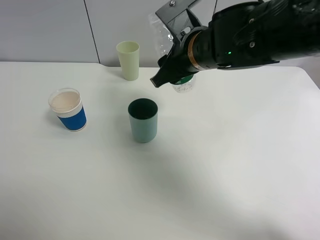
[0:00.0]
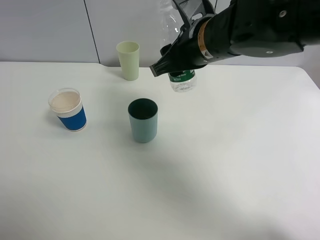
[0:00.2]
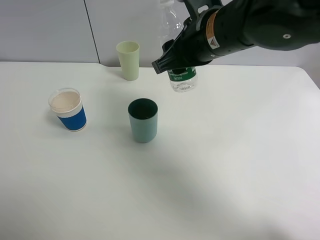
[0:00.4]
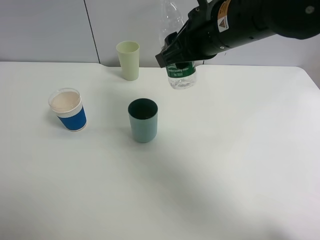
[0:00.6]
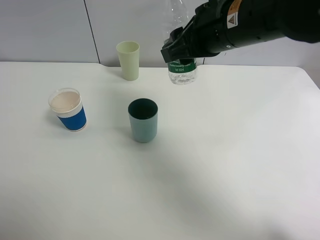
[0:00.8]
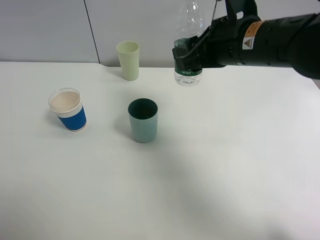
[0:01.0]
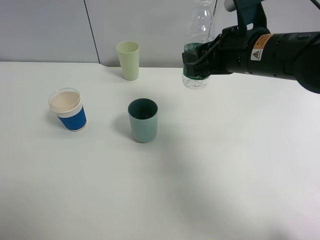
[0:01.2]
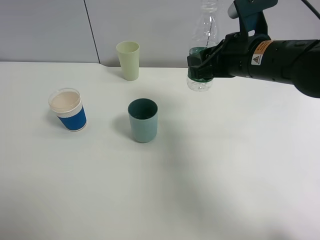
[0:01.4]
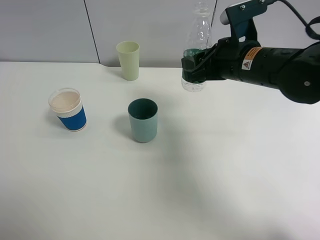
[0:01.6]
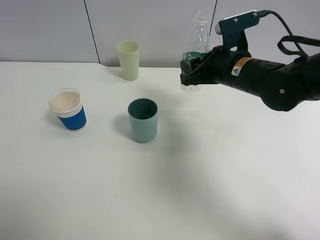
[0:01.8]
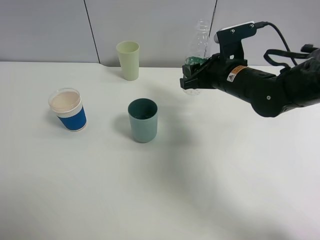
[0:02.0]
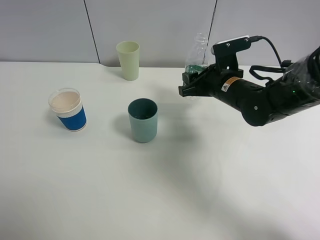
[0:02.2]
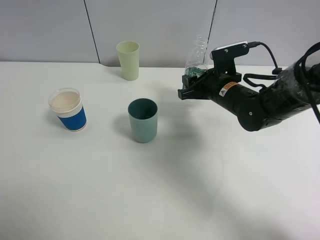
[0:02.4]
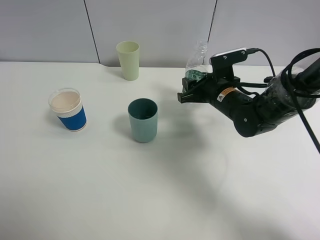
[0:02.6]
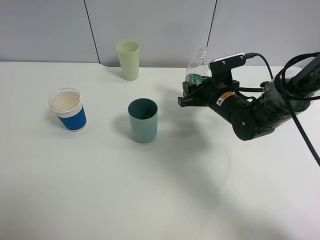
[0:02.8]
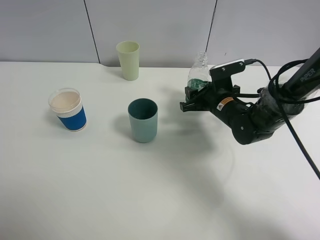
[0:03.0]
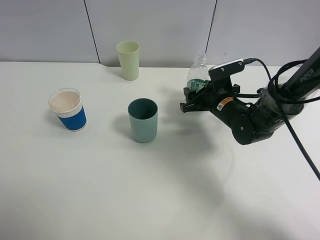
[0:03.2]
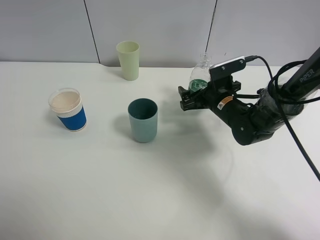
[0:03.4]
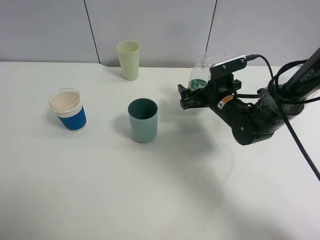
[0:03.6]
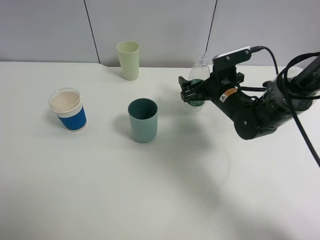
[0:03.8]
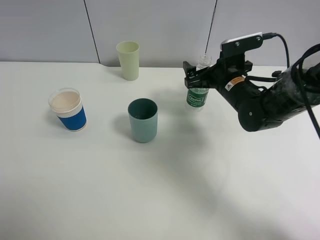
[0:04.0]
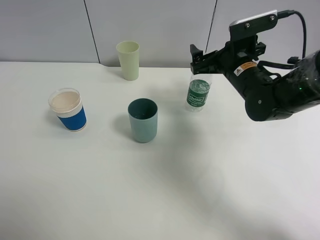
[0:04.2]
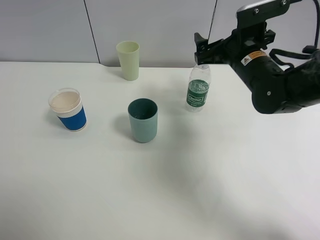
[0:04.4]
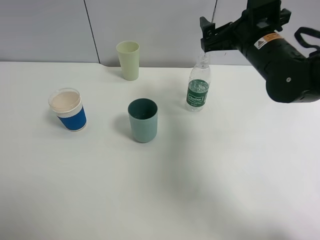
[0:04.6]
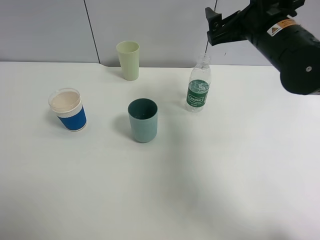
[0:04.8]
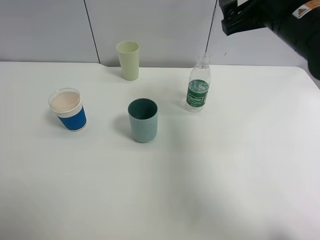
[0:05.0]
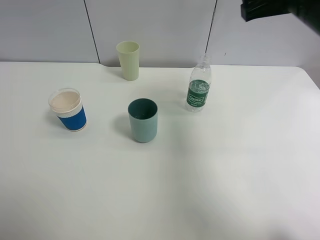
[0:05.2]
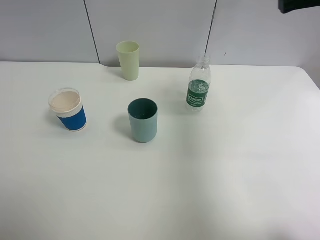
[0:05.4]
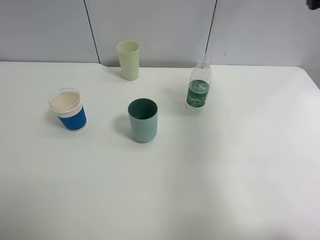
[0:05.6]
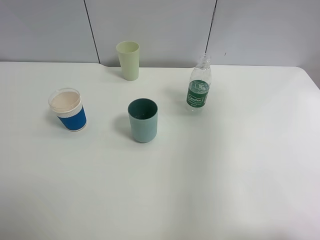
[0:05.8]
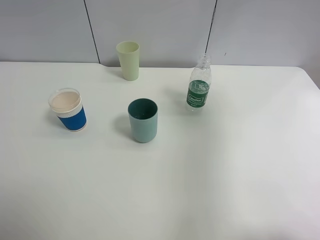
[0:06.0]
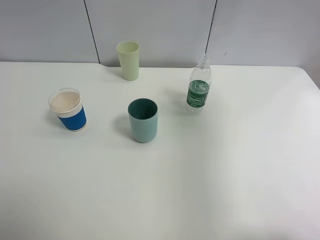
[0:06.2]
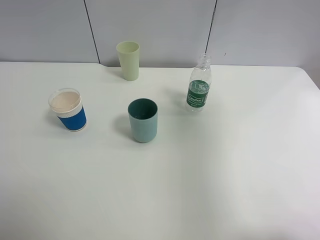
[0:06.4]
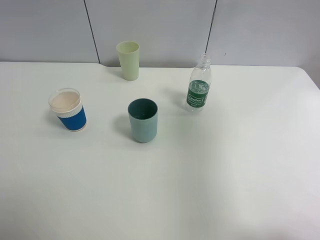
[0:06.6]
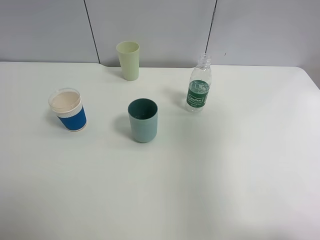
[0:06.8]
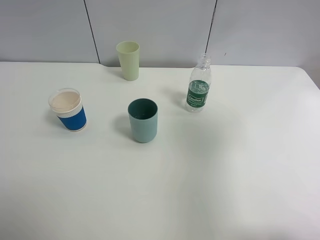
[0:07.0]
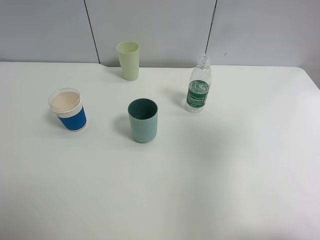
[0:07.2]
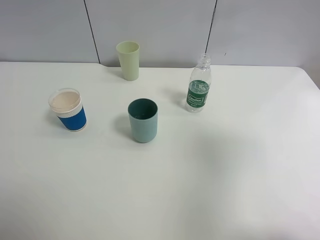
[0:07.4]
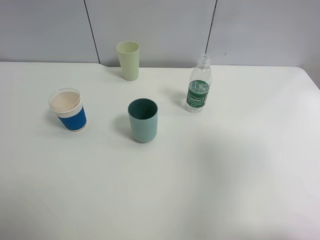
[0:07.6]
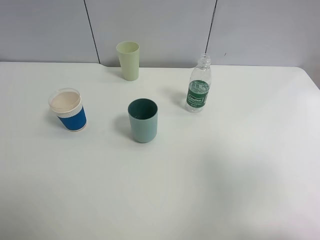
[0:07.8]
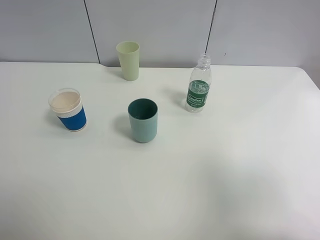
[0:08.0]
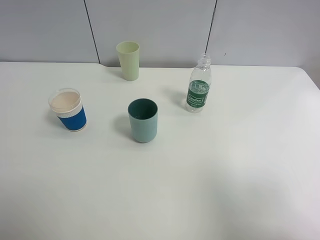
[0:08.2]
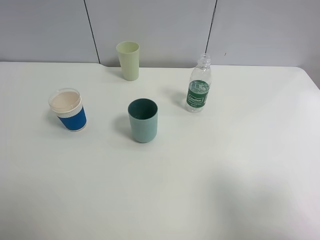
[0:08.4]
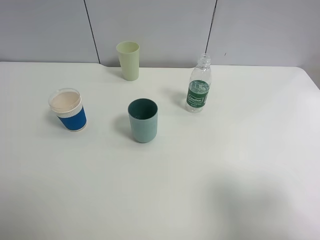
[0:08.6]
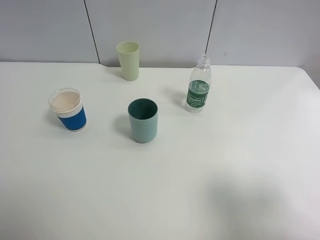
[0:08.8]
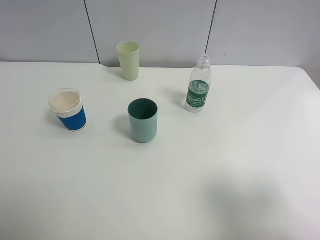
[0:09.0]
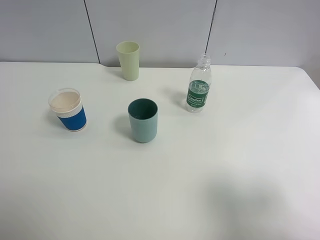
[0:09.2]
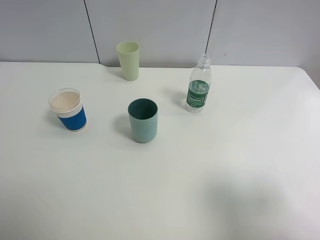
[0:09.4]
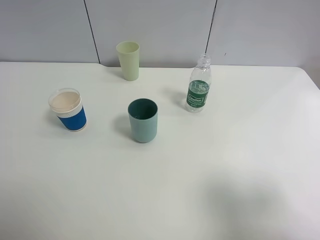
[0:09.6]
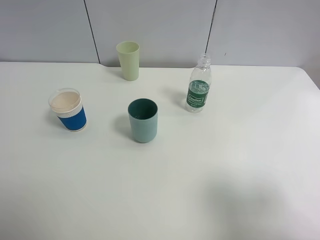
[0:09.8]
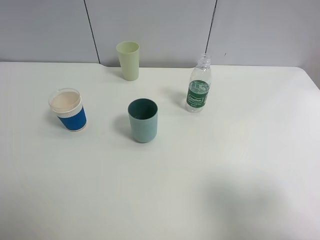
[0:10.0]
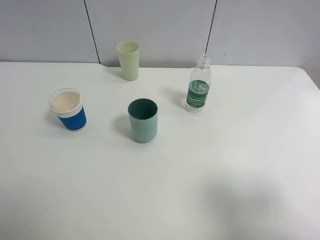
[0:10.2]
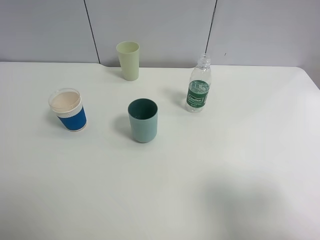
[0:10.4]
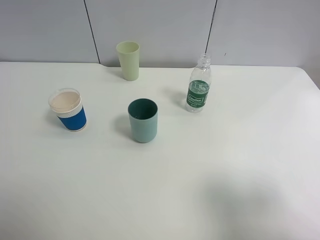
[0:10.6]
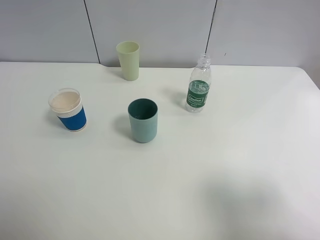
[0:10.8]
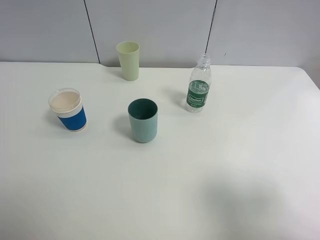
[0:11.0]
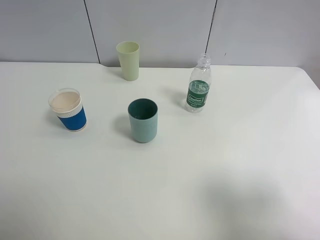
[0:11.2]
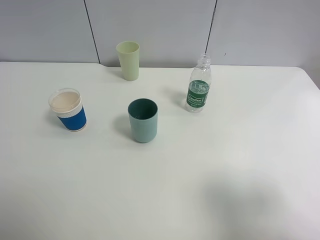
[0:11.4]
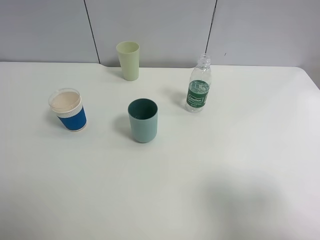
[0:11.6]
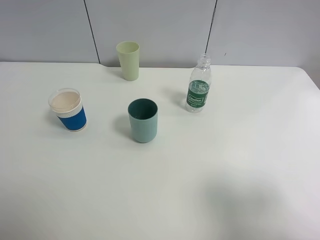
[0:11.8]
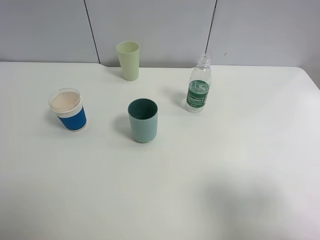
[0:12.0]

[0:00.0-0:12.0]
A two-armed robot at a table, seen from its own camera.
Task of the whole recording: use a clamp to hold the bottle of the drink, pour the beverage into a random cup, then clamp the cup containing the drink and pour the drink into another random cup.
Step, 0:00.4 to 0:04.4: Place the water bottle on the table with right gripper.
0:00.0 to 0:01.6: The right gripper shifts approximately 10 cm to the right.
0:01.6 to 0:03.0: The right gripper is displaced downward by about 15 cm.
0:03.0 to 0:04.4: The right gripper is displaced upward by some 10 cm, and opens.
0:04.4 to 0:06.0: The right gripper goes about 25 cm upward, to the right and backward.
0:06.0 to 0:07.6: The right gripper goes approximately 15 cm backward.
0:07.6 to 0:09.0: The right gripper goes about 10 cm downward and backward.
0:09.0 to 0:12.0: Both grippers stay put.

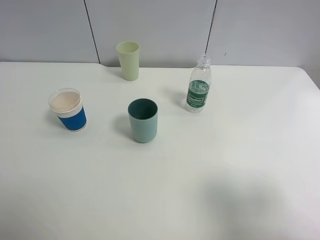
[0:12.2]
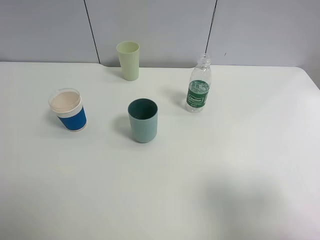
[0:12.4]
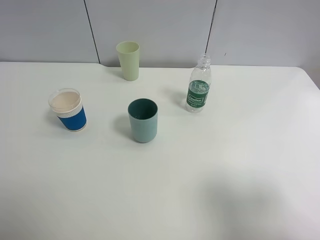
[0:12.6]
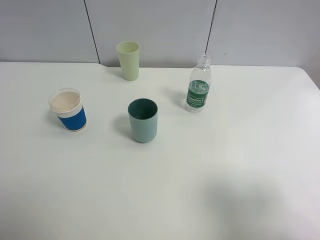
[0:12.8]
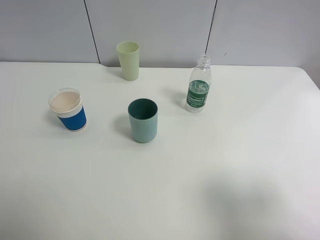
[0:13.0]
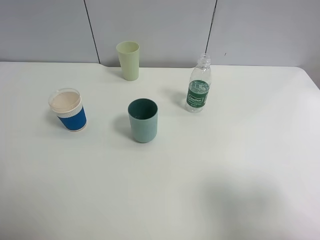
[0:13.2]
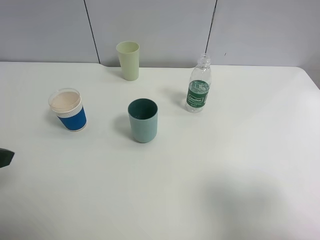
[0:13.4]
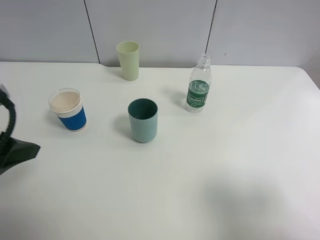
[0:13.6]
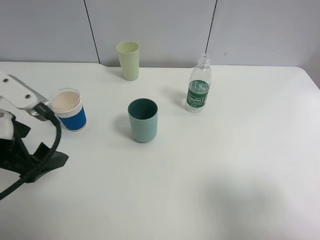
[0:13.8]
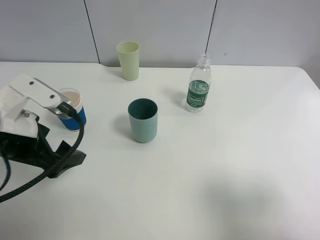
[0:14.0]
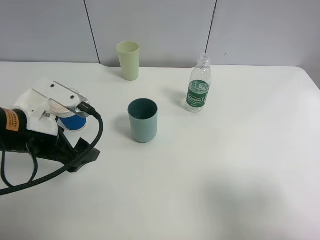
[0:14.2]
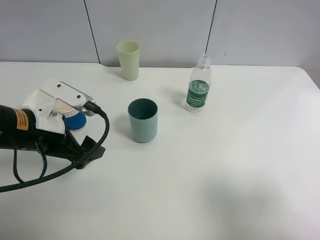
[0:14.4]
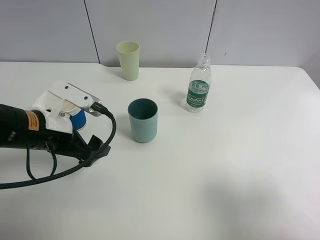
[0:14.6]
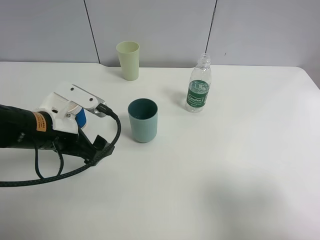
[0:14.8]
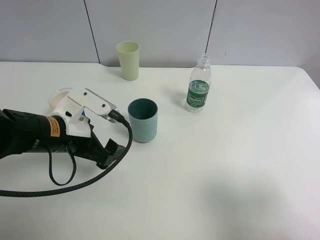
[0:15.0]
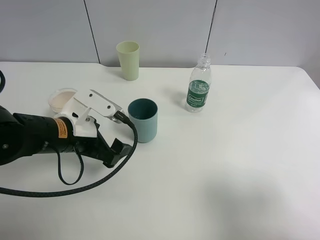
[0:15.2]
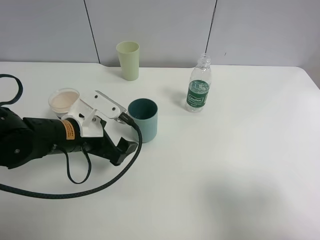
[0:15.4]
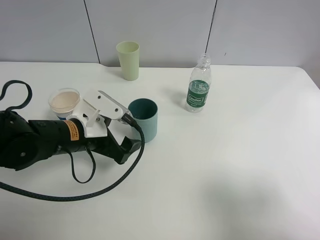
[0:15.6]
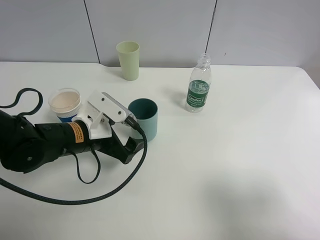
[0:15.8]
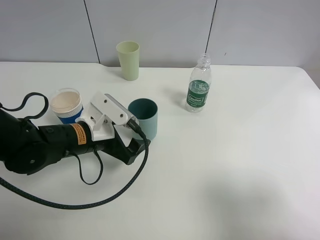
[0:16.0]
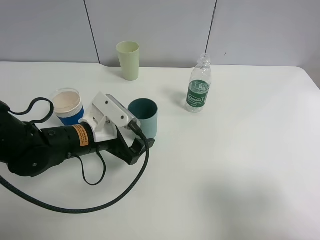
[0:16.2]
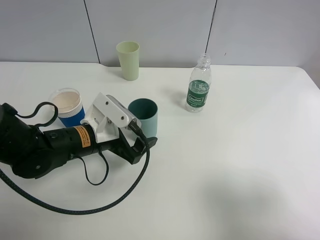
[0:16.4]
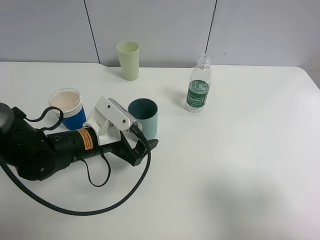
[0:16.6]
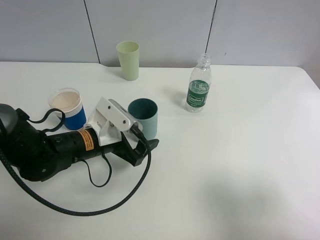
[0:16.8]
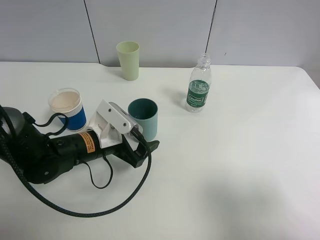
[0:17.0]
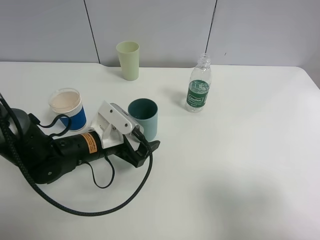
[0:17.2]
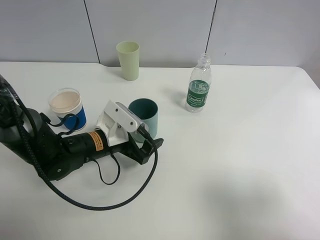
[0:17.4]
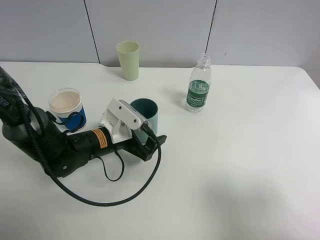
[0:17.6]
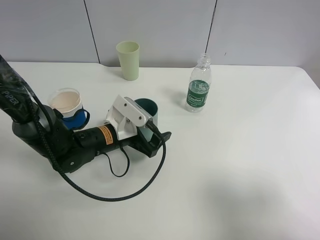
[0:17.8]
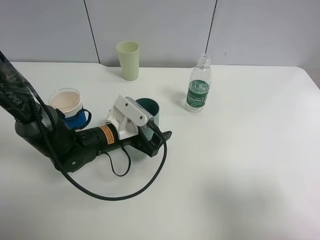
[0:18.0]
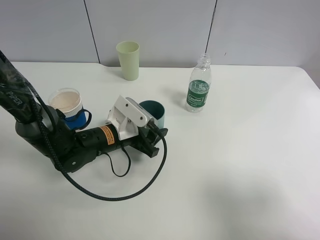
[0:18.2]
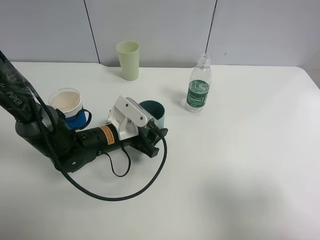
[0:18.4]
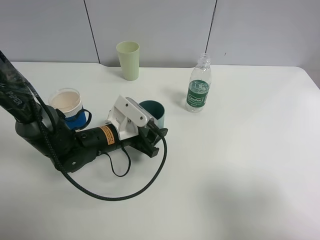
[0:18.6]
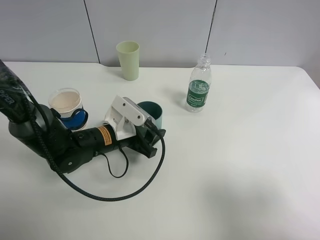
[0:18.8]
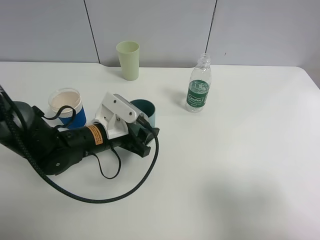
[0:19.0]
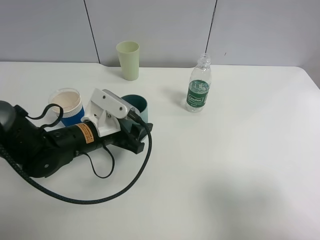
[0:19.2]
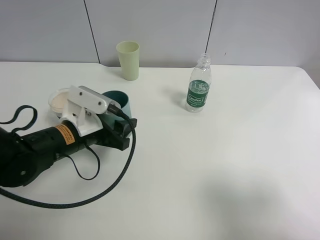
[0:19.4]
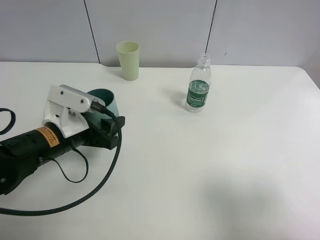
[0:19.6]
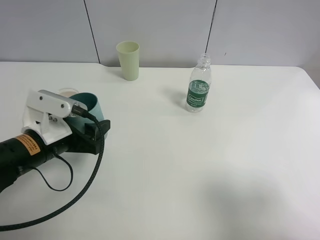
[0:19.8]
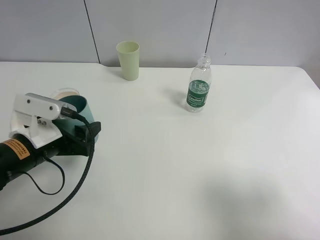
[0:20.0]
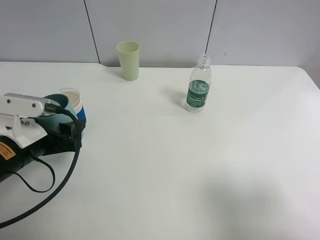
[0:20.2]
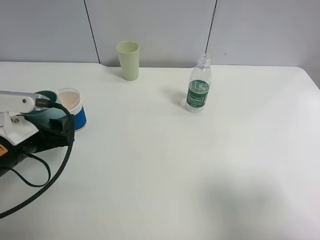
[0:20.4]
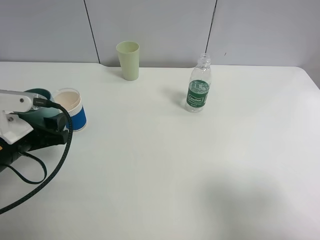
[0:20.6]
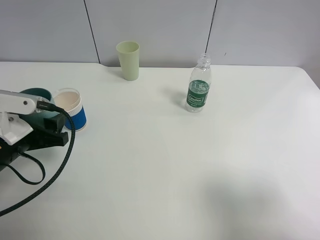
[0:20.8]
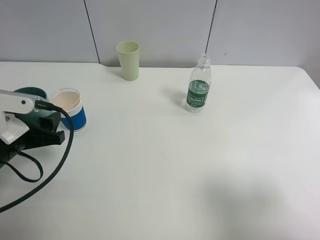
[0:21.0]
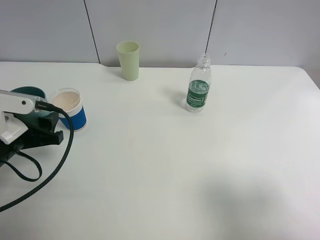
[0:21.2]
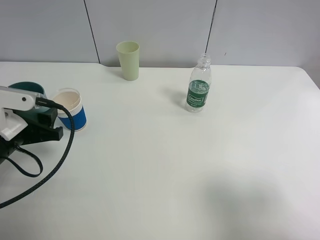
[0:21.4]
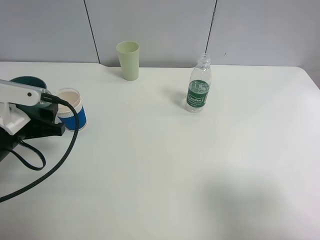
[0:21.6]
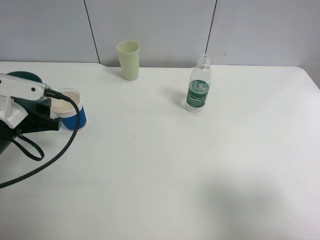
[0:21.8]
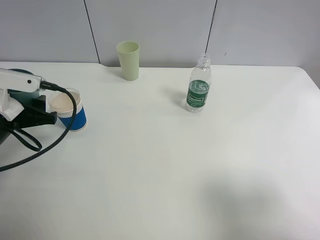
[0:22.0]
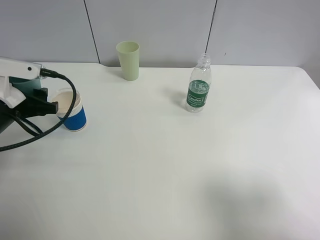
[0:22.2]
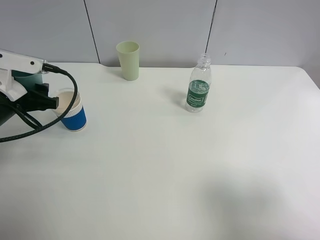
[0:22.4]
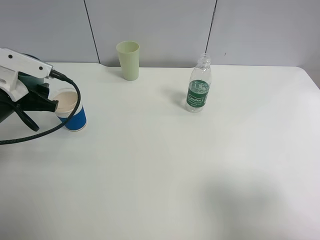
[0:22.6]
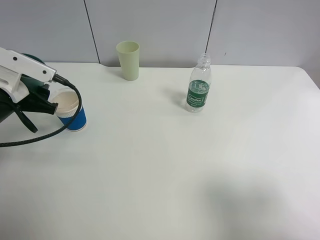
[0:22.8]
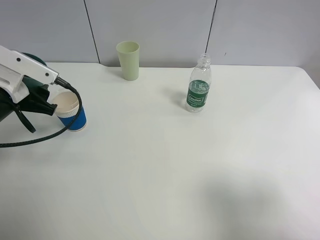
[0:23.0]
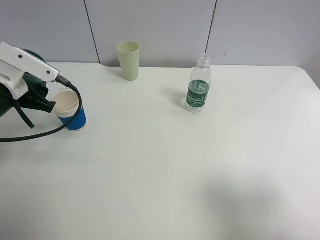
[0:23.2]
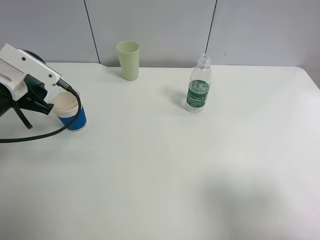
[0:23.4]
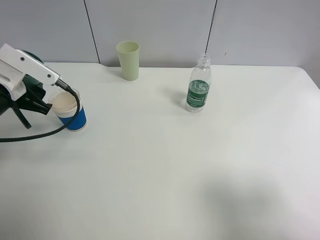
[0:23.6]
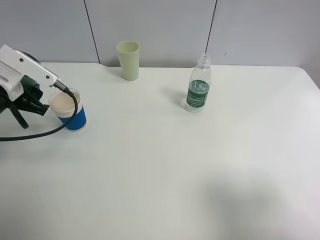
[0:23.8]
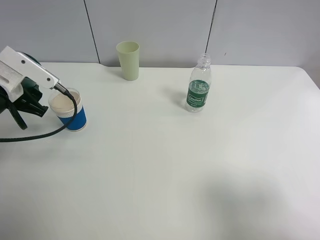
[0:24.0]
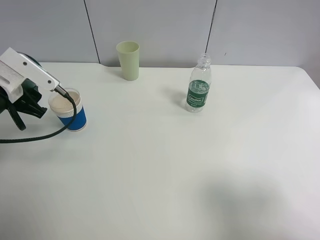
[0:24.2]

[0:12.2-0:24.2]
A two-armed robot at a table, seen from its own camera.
Task of the whole recording: use a clamp to hold the bottle of the drink, pour the beverage into a random cup, then clamp the cup containing the drink and pour the drink into another random cup.
Step, 0:12.2 to 0:19.4: Pick up the blue plastic cup bottle with left gripper.
0:12.2 to 0:13.8: The left gripper moves forward, to the right and downward, some 20 cm.
0:13.8 to 0:15.2: The left gripper moves downward, to the right and forward, approximately 10 cm.
0:15.2 to 0:16.6: The left gripper shifts by roughly 5 cm.
0:16.6 to 0:18.2: The left gripper moves about 5 cm, and closes its fingers.
0:18.2 to 0:19.8: The left gripper is displaced to the left, backward and upward by some 15 cm.
0:19.8 to 0:21.2: The left gripper goes approximately 5 cm to the left.
0:21.2 to 0:22.6: The left gripper goes roughly 5 cm forward.
